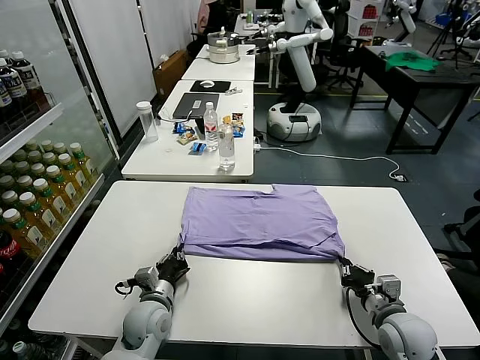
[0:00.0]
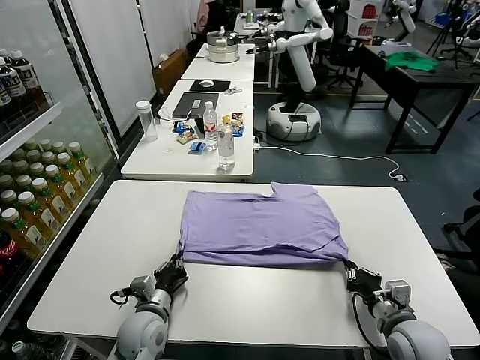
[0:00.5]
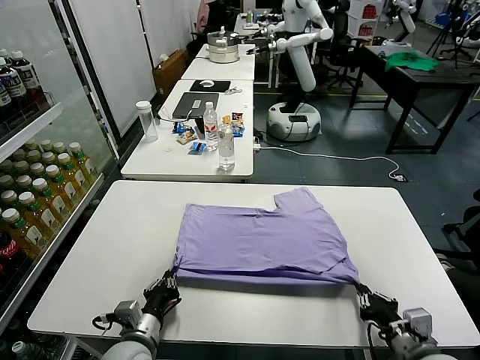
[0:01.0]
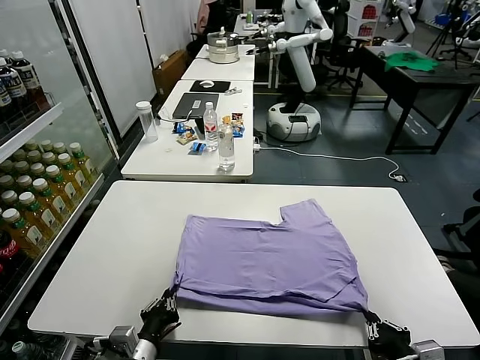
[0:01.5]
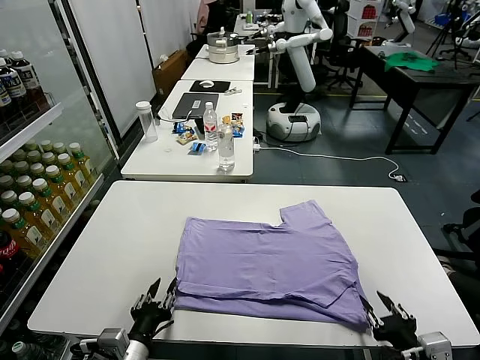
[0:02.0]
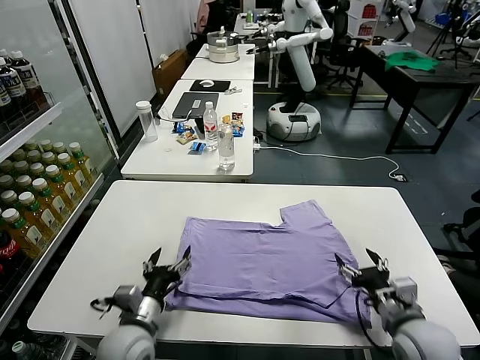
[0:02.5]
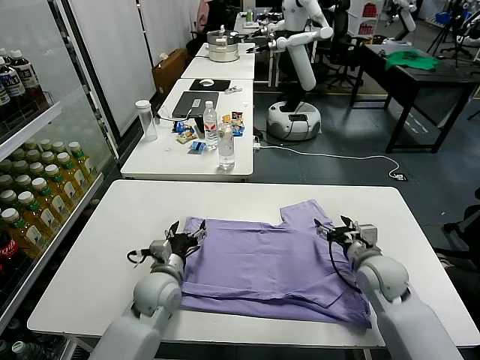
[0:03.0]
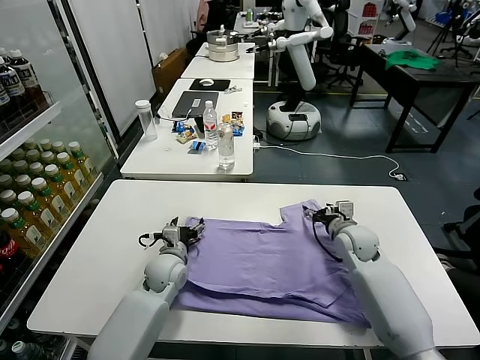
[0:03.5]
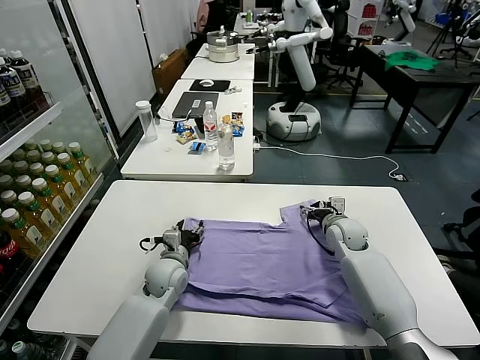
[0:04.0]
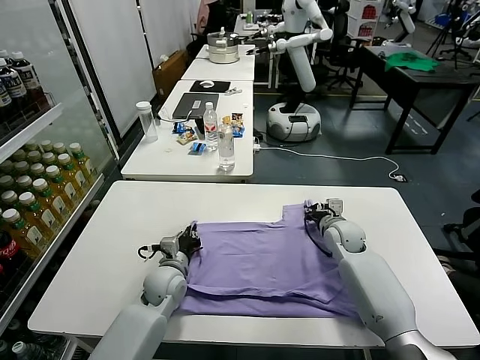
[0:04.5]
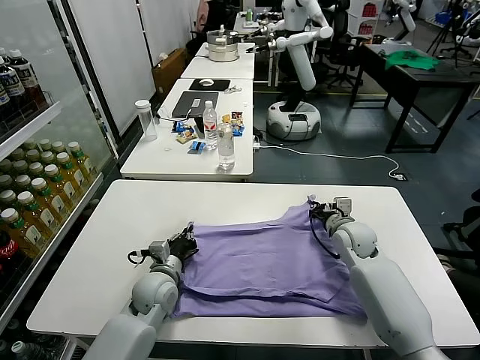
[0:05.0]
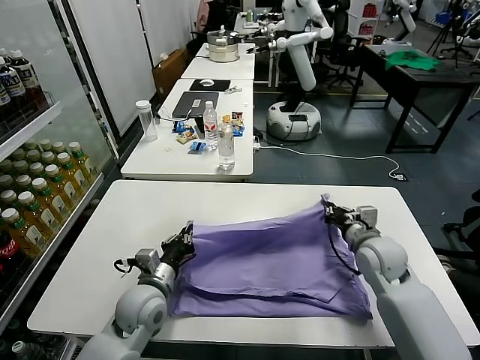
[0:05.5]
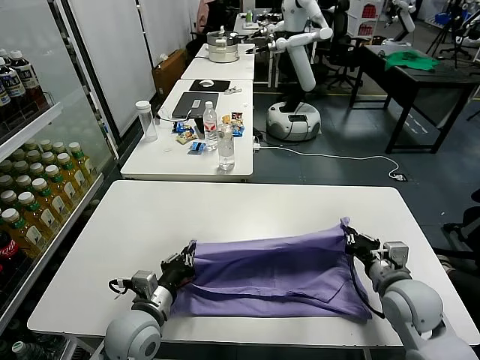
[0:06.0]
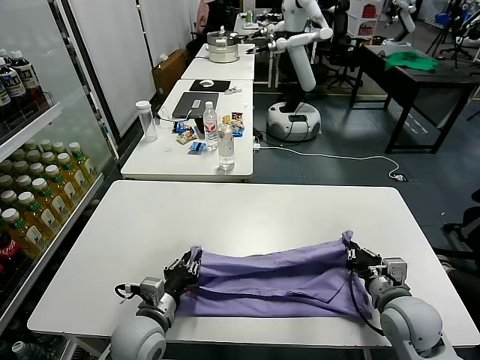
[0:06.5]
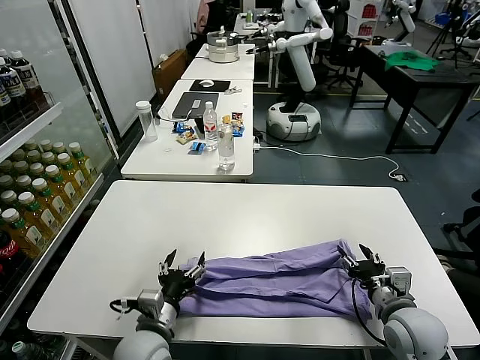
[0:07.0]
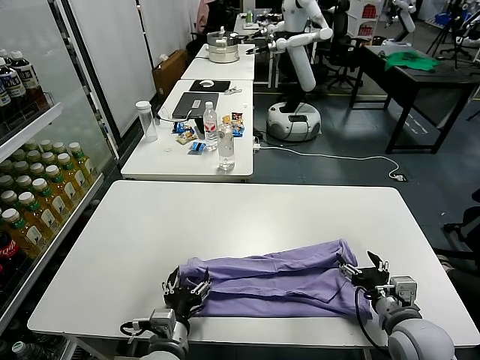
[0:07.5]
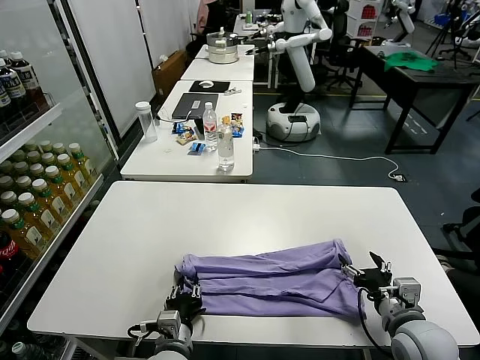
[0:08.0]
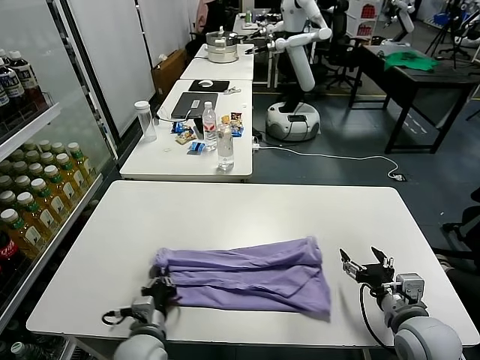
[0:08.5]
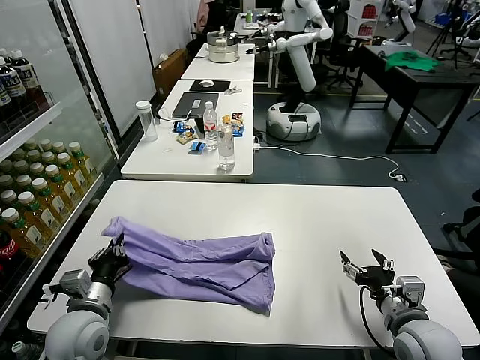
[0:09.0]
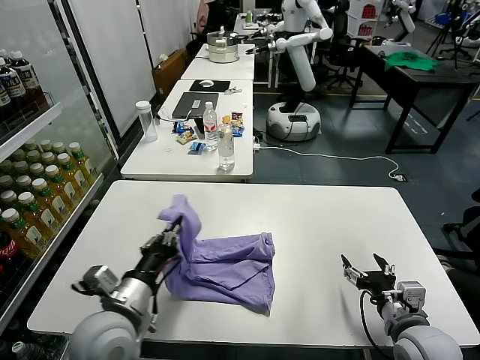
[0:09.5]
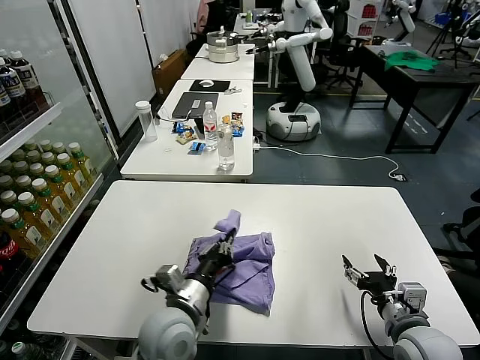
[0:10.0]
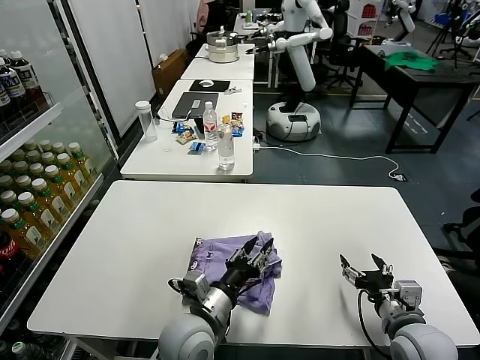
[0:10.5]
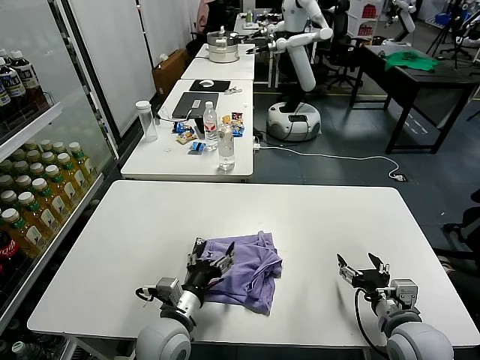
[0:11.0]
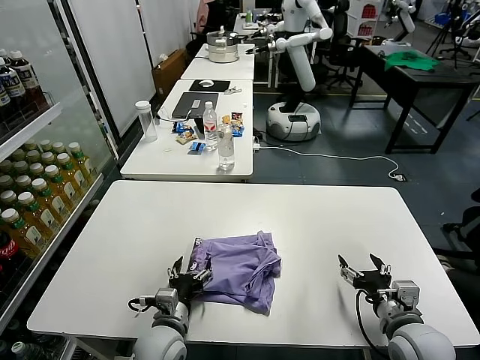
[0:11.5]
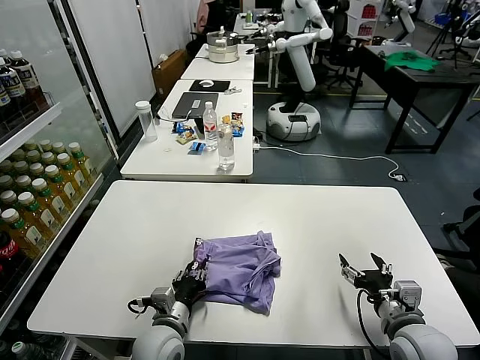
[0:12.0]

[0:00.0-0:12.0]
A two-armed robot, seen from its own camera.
Task of the whole recording: fold and organize the clothes.
Step, 0:00.0 to 0:02.0: Drag the clothes downward with both gripper.
Step, 0:02.5 to 0:04.5: use both grippers simultaneously to clamp the upper edge of the clothing fabric.
Step, 0:05.0 to 0:07.0: use both grippers to drag the upper edge of the fabric backward and fold it over the lower edge.
Step, 0:07.5 to 0:08.0: use the left gripper to clamp the left edge of the fabric.
Step, 0:09.0 to 0:10.0: use the left gripper to drag the left edge of the fabric to the left and folds it over the right edge.
0:00.0 to 0:02.0: Both grippers travel together backward and upward, about 15 cm. The left gripper opens up, while the right gripper opens.
0:02.0 to 0:04.0: Both grippers travel together forward, approximately 30 cm.
0:04.0 to 0:06.0: The left gripper shifts some 15 cm backward and upward, and closes up, while the right gripper heads backward, covering some 20 cm, and closes its fingers.
0:06.0 to 0:08.0: The right gripper goes roughly 5 cm backward, and opens its fingers. The left gripper goes some 10 cm downward, to the right and backward, and opens, then closes again.
0:08.0 to 0:10.0: The left gripper goes roughly 10 cm upward, and reaches some 15 cm to the left, then returns.
0:10.0 to 0:12.0: The left gripper shifts about 10 cm downward, and opens.

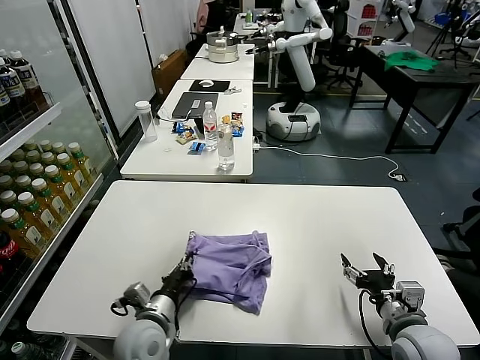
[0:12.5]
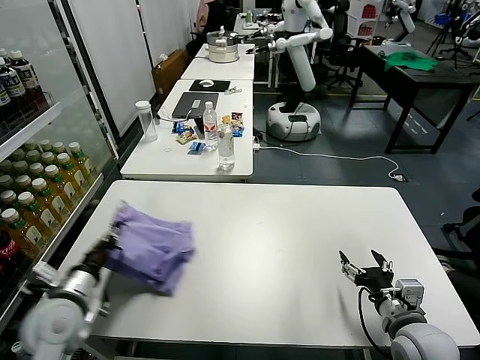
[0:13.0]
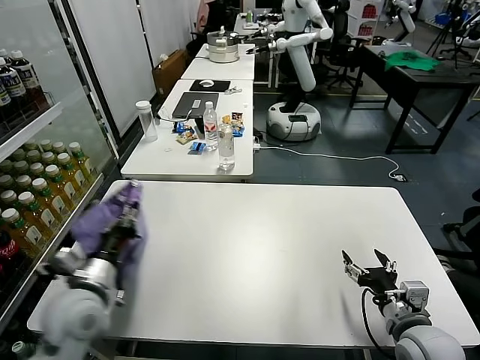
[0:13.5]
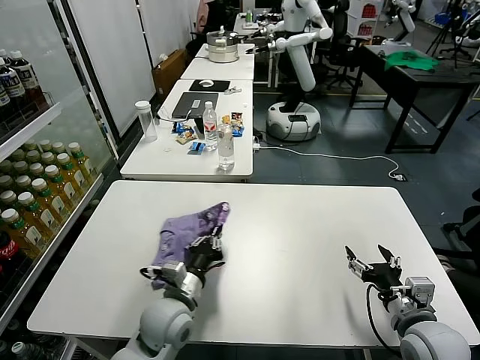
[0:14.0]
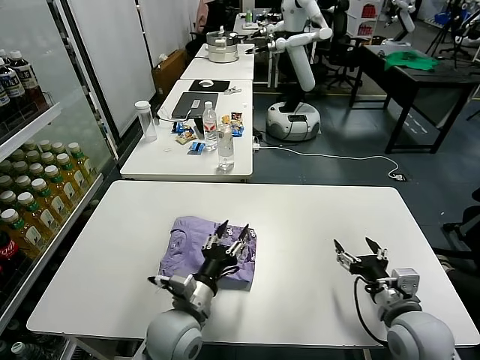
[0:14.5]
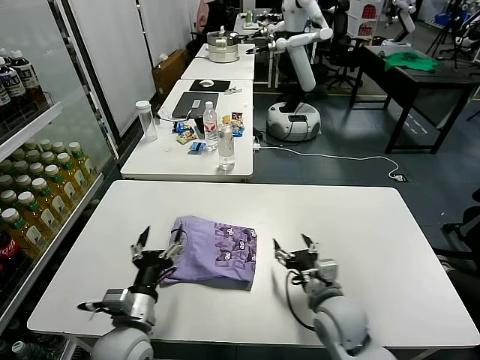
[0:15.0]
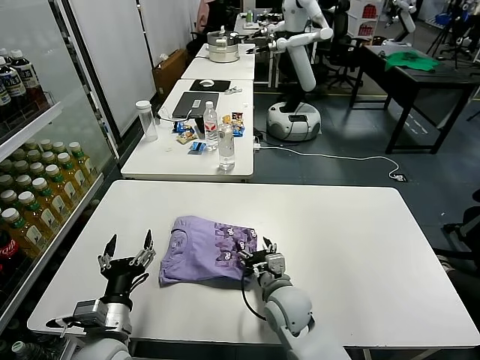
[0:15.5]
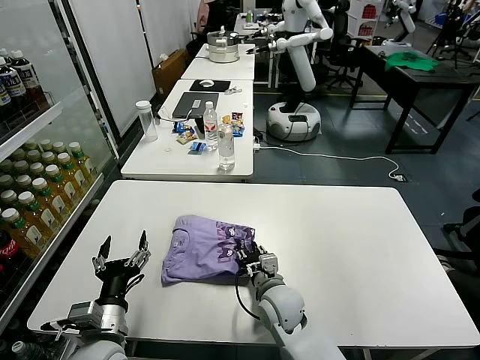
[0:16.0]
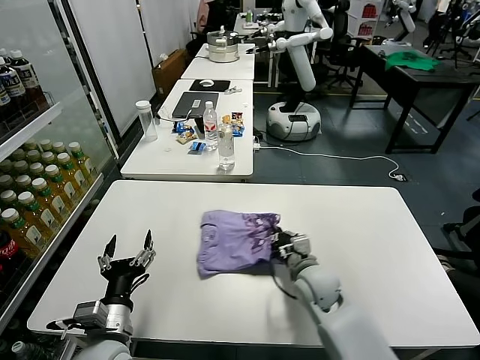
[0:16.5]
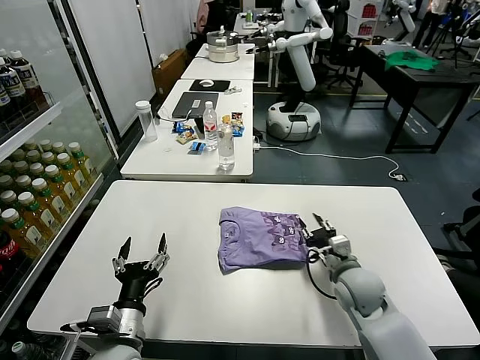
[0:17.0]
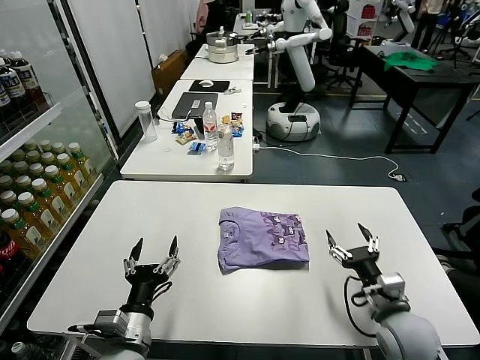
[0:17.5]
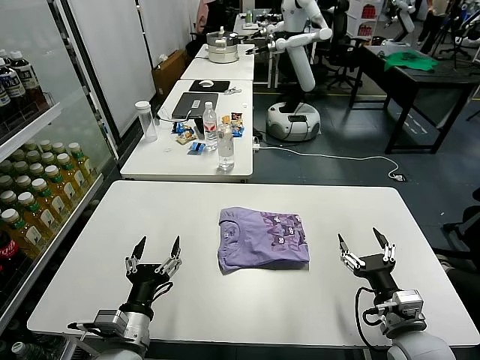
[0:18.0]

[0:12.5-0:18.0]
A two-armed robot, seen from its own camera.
Task of the whole recording: fold and organize the clothes.
Step, 0:12.5 to 0:14.5: Flip the folded clothes over with left gripper.
Step, 0:15.0 to 0:17.0: Drag the clothes to the center of the table.
0:12.5 to 0:14.5: The left gripper shifts some 10 cm to the right, and opens its fingers.
0:14.5 to 0:16.0: The left gripper heads to the left and backward, covering about 15 cm, and opens up. Meanwhile the right gripper goes roughly 25 cm to the left and forward, and closes its fingers.
0:16.0 to 0:18.0: The right gripper moves to the right and backward, roughly 25 cm, and opens up.
